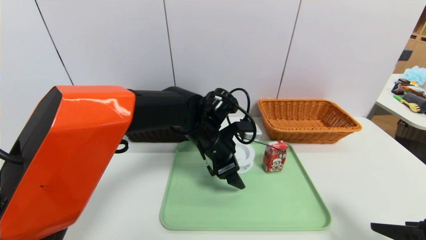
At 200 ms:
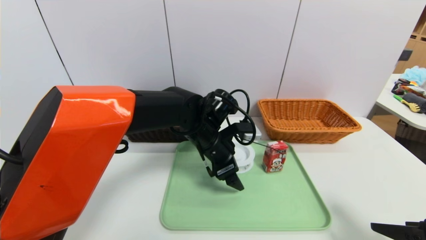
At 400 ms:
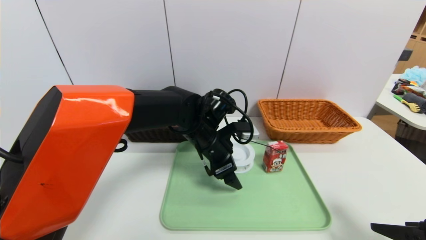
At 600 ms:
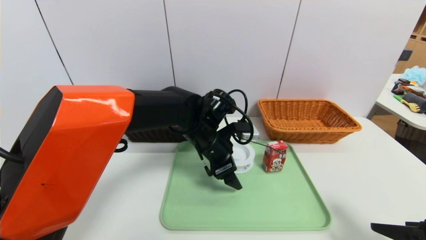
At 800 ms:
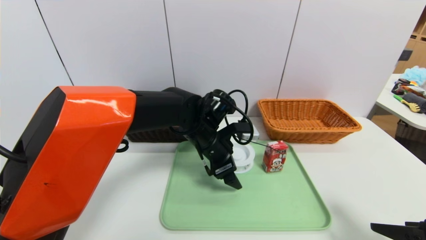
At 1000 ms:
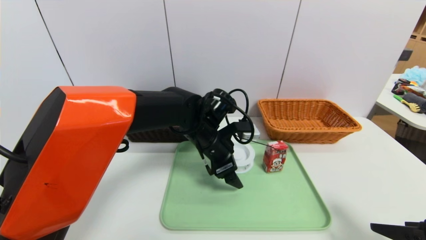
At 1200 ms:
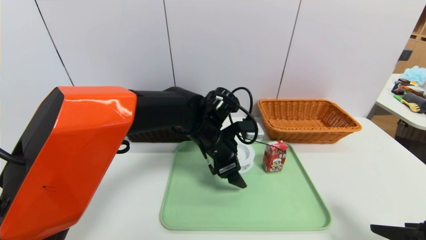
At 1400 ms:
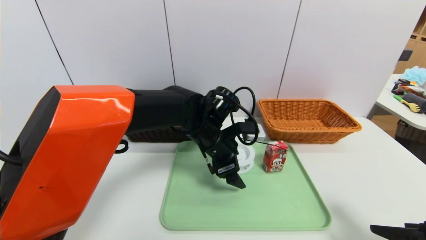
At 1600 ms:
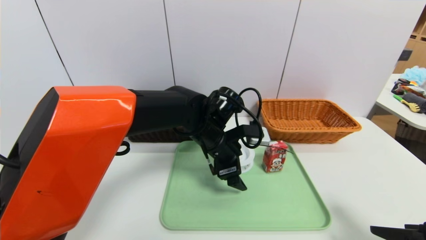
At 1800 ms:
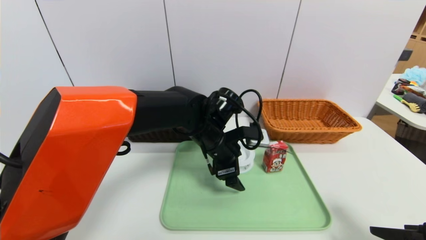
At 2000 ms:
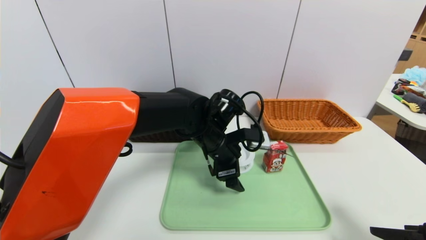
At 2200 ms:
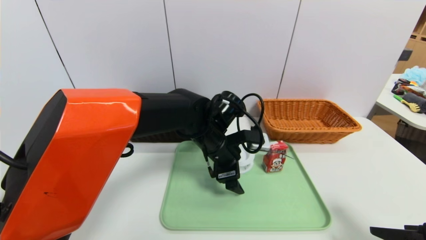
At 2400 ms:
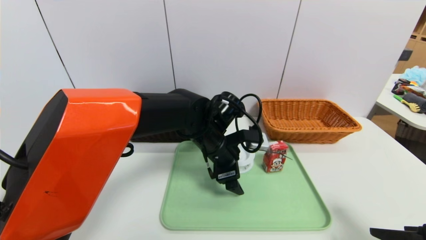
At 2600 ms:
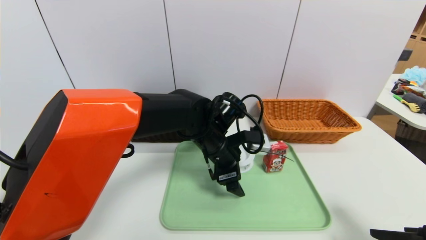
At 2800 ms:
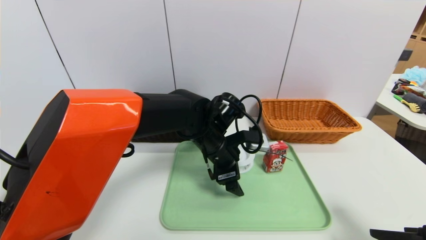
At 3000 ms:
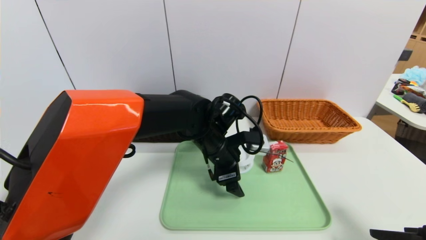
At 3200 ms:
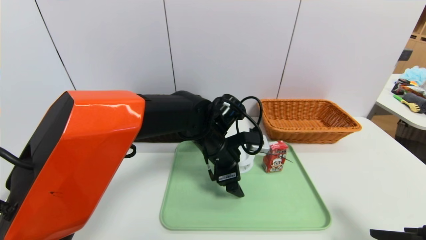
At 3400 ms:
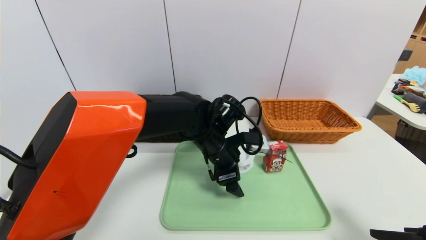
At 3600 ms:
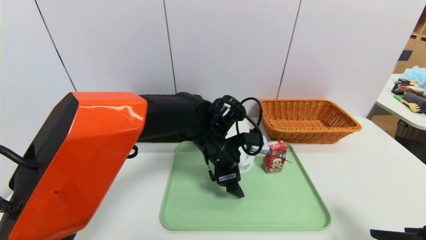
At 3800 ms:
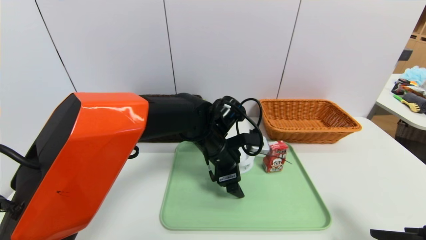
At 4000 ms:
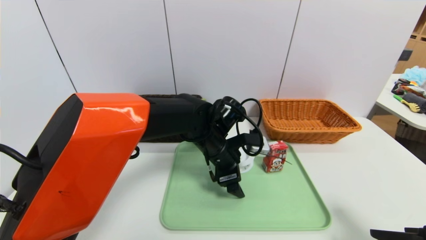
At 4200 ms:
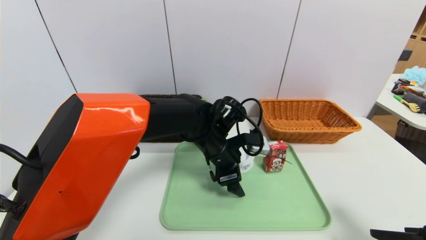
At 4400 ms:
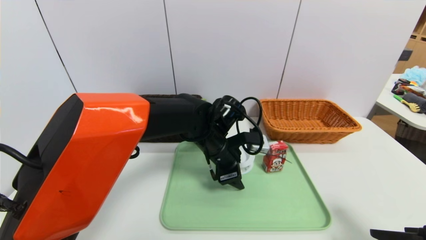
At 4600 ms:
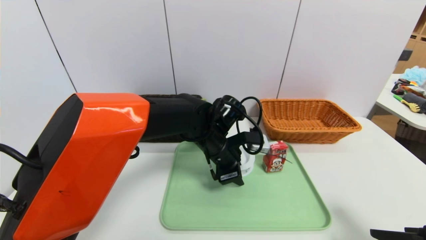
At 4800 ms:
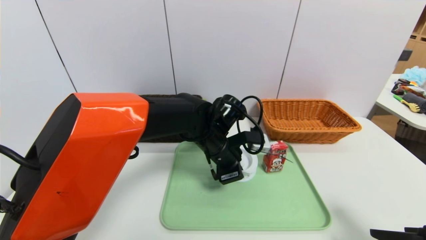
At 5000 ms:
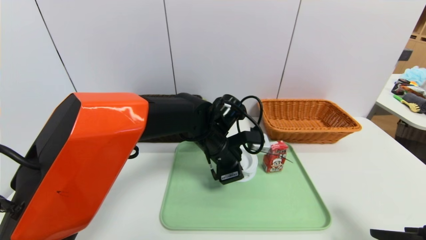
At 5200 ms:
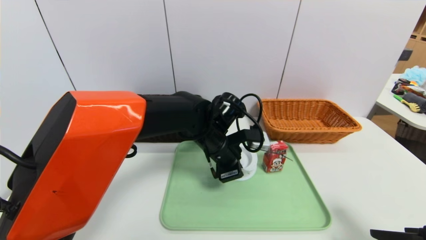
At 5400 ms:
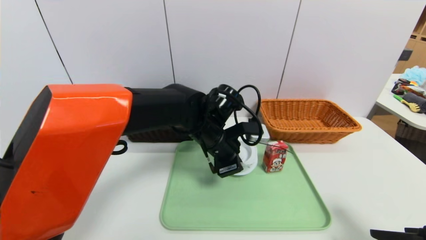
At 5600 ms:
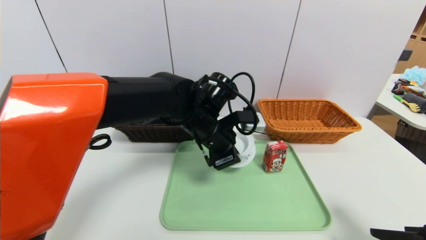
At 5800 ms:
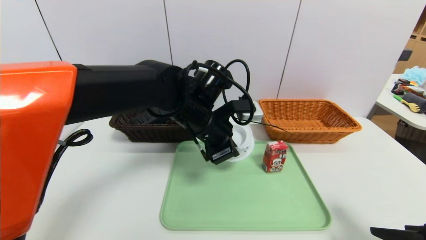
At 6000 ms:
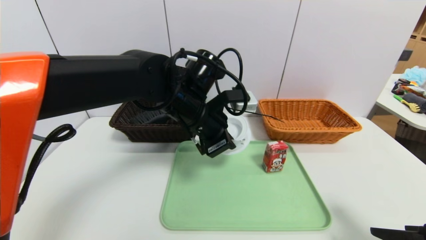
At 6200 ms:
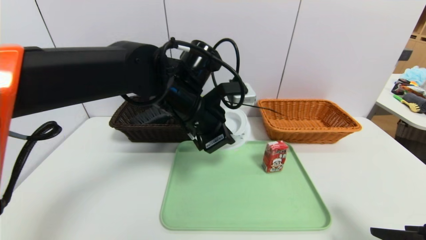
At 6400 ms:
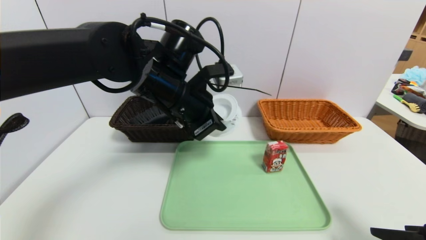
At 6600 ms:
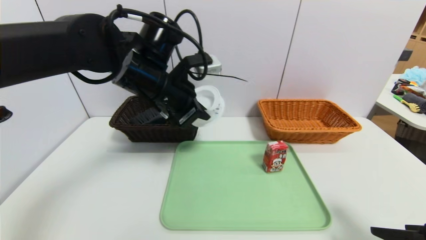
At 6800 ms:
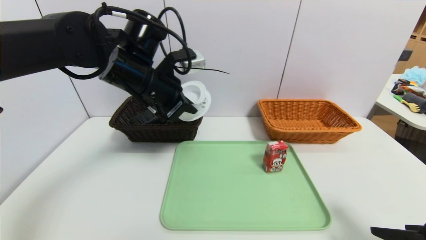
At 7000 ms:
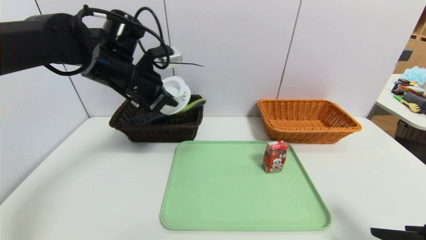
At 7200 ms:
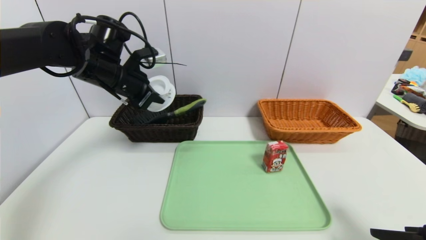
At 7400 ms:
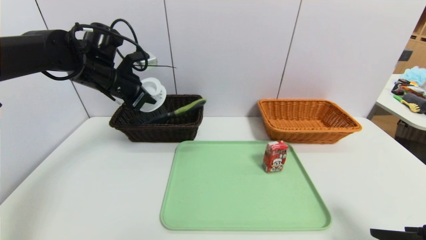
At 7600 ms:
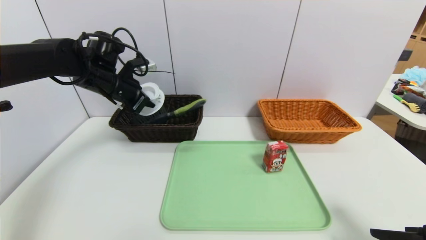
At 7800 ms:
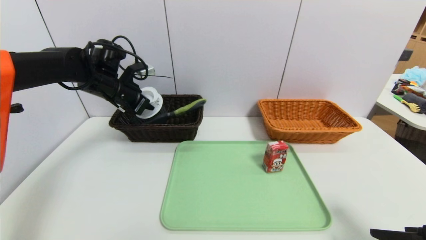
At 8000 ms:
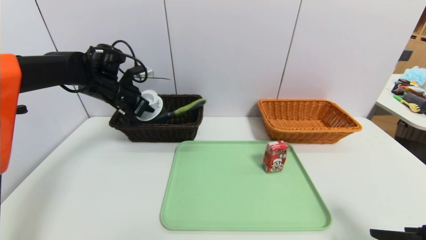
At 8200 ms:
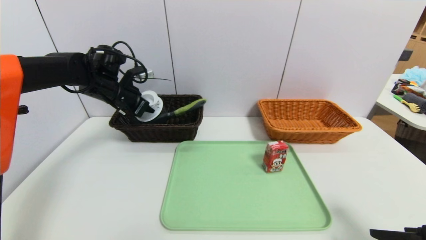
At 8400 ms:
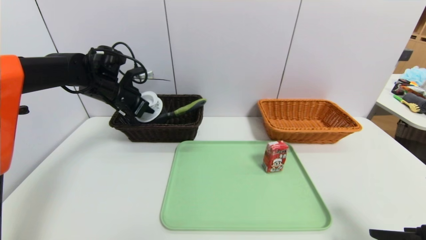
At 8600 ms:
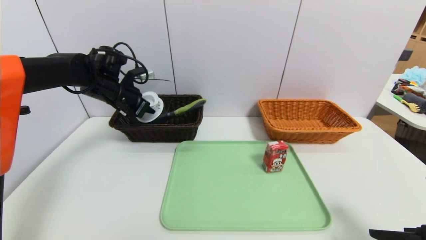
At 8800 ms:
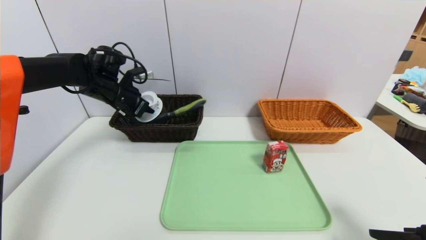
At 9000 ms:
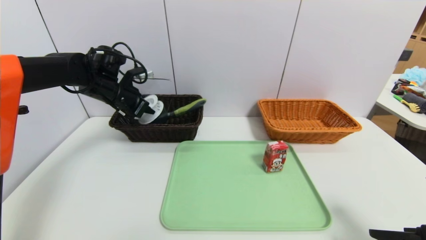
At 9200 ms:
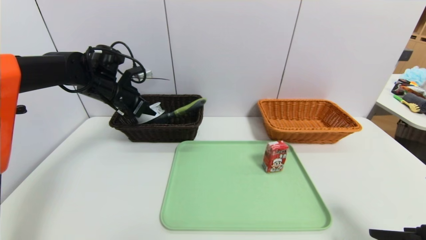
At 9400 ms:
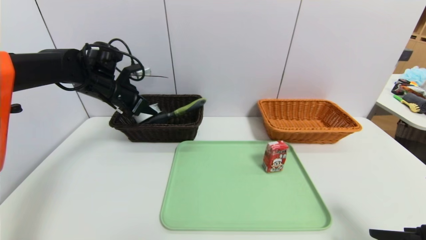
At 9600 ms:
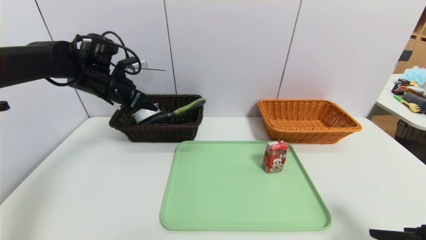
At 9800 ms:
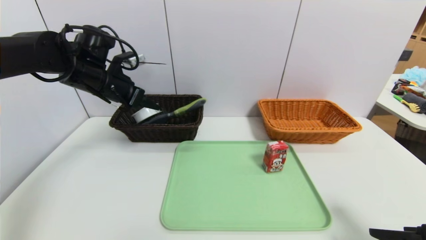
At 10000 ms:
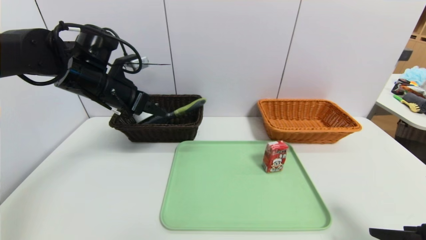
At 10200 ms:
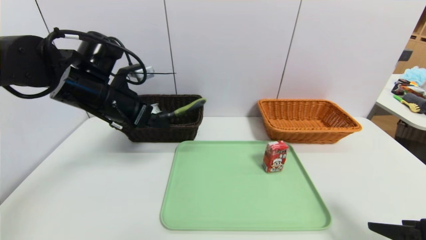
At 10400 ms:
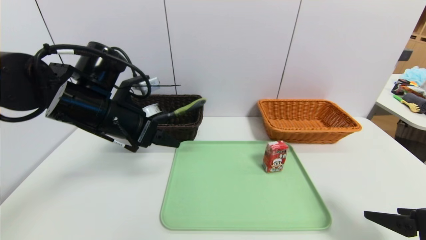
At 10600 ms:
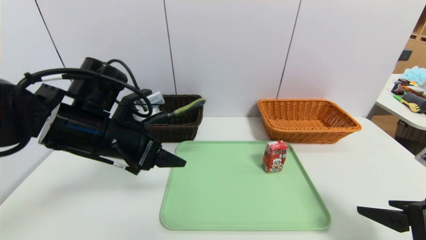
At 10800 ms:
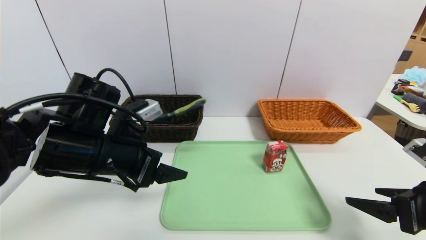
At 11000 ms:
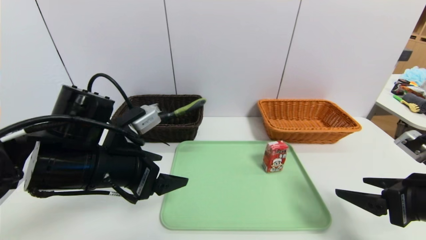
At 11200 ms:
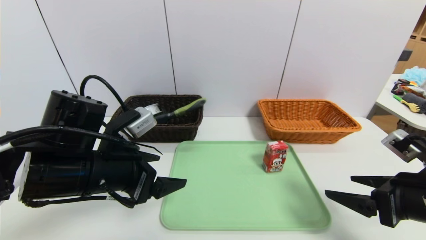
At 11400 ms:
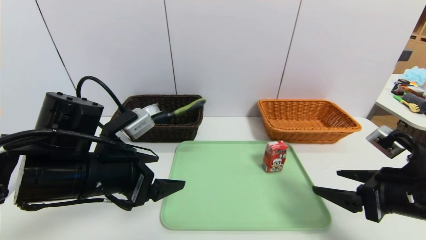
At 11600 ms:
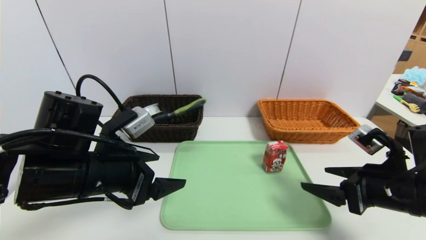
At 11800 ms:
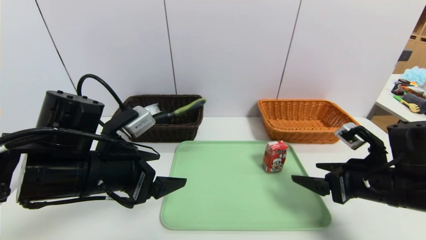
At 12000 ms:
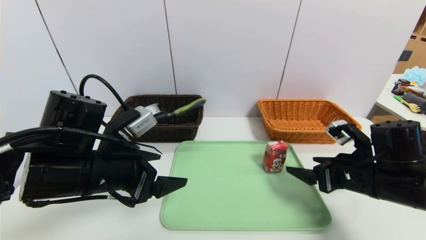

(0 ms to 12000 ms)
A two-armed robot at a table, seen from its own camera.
Task of the whole recording: place the food in the right basket with the right gripper, and place the non food items in the left basket with the left gripper.
Step, 0 ms - 9600 ms: Place the tape in the center of the table.
0 ms - 1600 ms: The grippers move only a little.
1600 ms - 3000 ms: The two grippers keep their place.
3000 ms - 4400 ms: The two grippers keep their place.
4400 ms - 6000 ms: The left gripper travels upward by roughly 10 cm, and closes up.
6000 ms - 7600 ms: The left gripper is displaced to the left and forward by about 20 cm.
7600 ms - 9000 ms: The grippers make only small movements.
9000 ms - 10400 ms: The left gripper is displaced backward and to the right by roughly 15 cm, and opens.
10400 ms - 12000 ms: The left gripper heads backward, covering roughly 5 cm, while the right gripper shifts about 15 cm forward and to the left.

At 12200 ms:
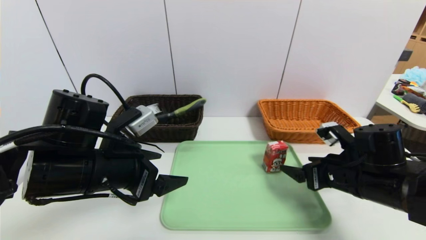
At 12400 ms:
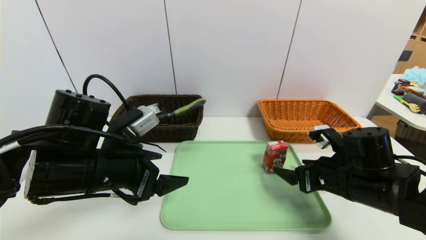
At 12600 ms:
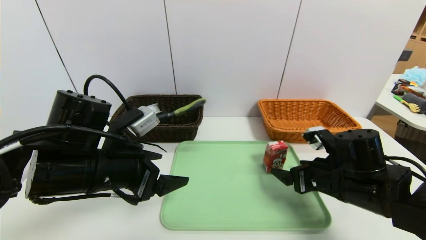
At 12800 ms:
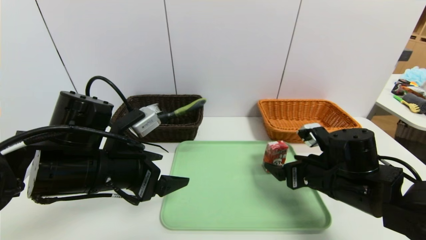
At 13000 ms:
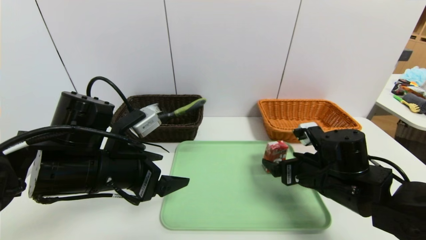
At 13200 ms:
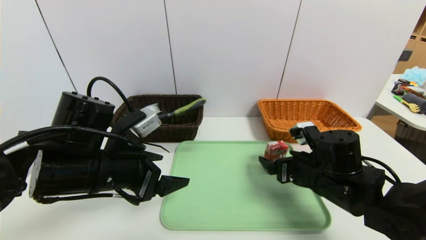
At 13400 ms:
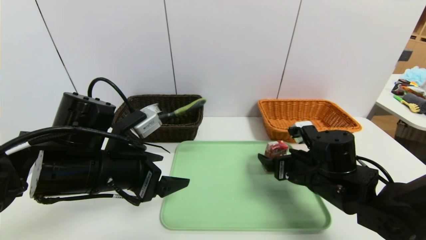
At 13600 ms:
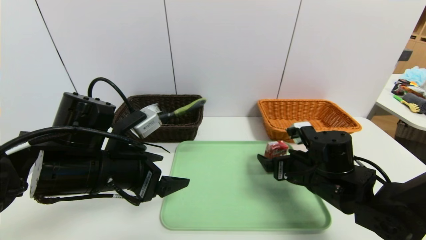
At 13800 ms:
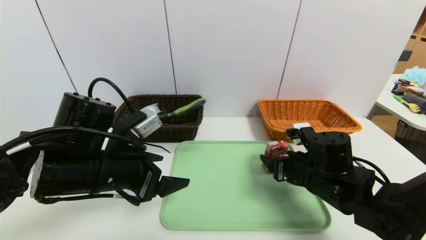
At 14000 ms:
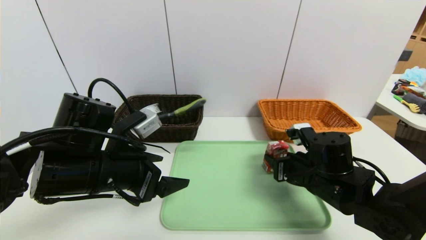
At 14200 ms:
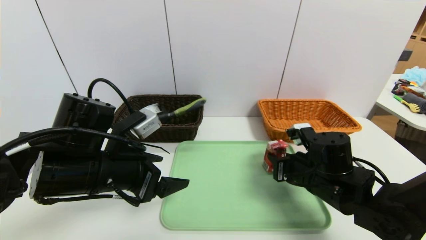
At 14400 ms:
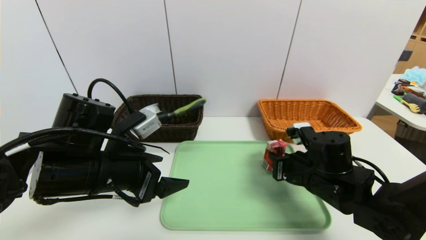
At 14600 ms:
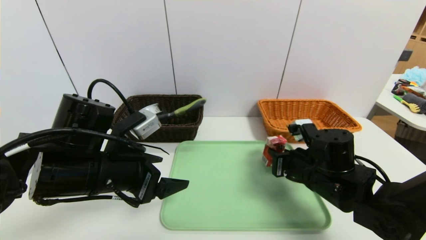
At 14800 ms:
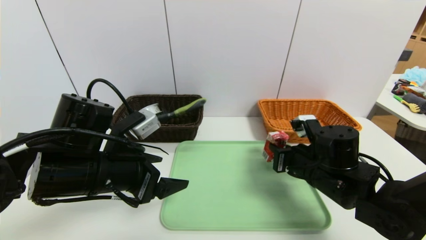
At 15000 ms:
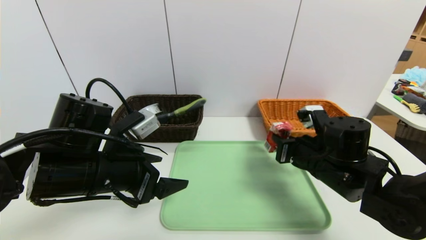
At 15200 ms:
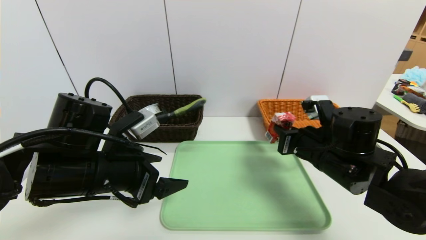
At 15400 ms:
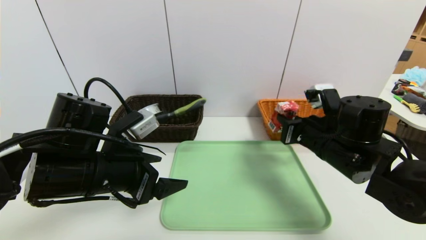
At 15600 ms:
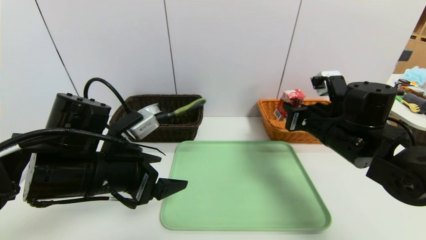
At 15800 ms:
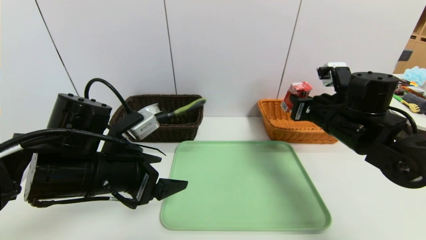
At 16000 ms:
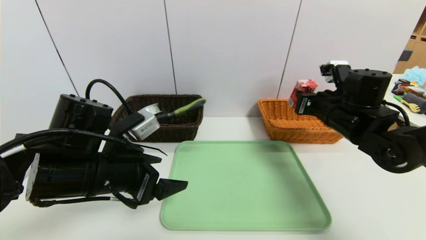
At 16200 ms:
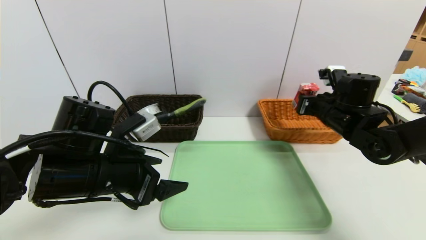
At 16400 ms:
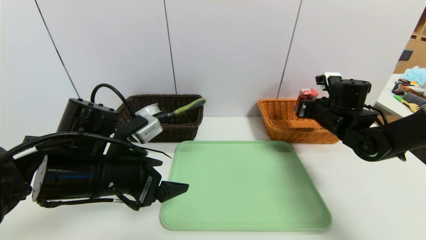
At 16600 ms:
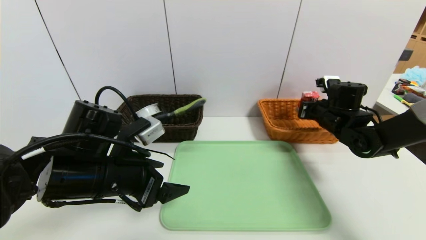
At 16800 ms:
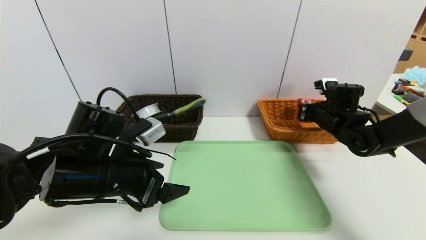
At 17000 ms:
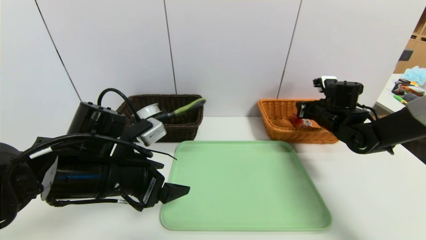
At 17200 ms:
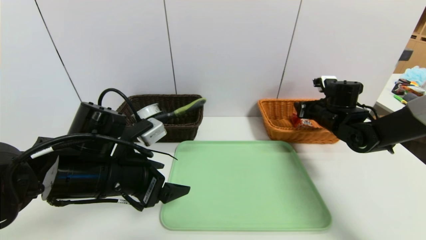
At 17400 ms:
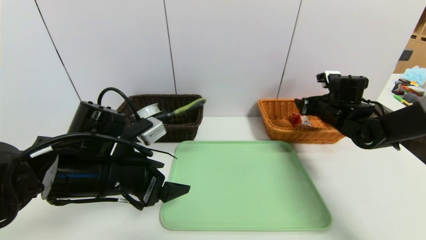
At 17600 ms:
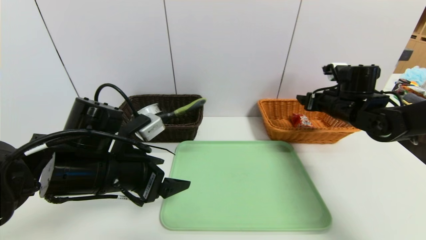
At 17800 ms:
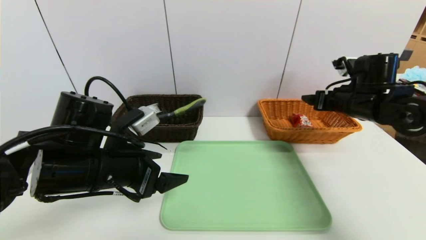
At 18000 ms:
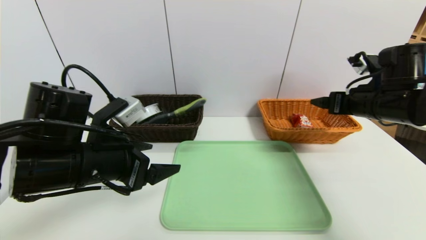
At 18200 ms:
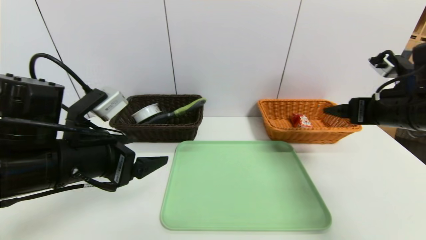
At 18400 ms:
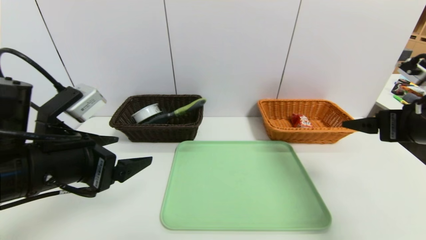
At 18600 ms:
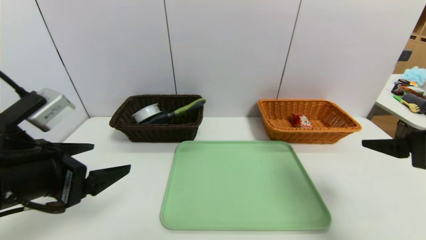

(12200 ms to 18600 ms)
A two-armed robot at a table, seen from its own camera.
Task of the whole recording: place the food in the right basket with the right gripper, and place the non food items in the left basket with the left gripper.
Step, 12200 ms - 17400 ms: Grasp the milk and put it in the right basket.
12200 ms - 13800 ms: The right gripper is displaced to the left by approximately 5 cm.
13800 ms - 15400 ms: The right gripper goes roughly 5 cm upward, and closes.
15400 ms - 17000 ms: The right gripper heads forward and to the right, covering approximately 15 cm, and opens.
17000 ms - 18600 ms: The right gripper travels backward and upward by approximately 30 cm, and opens, while the left gripper is displaced backward, to the left and upward by approximately 10 cm.
